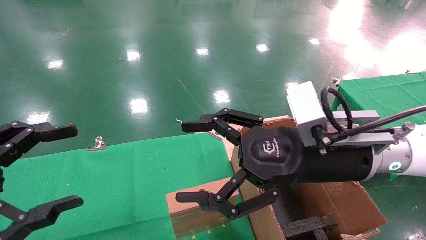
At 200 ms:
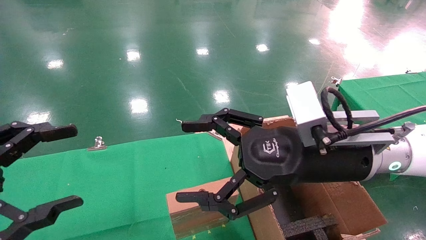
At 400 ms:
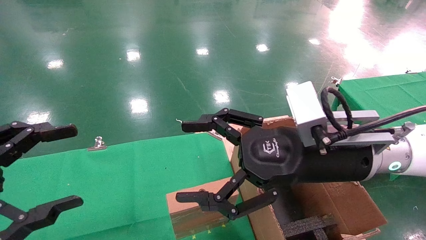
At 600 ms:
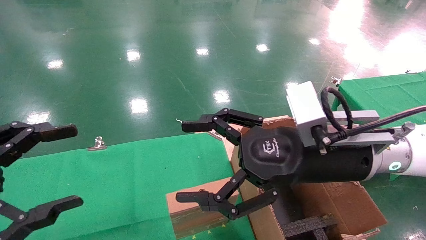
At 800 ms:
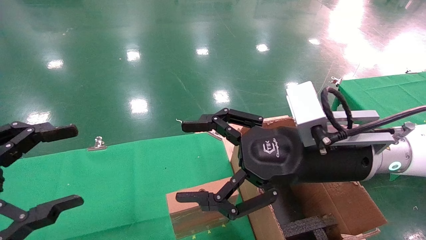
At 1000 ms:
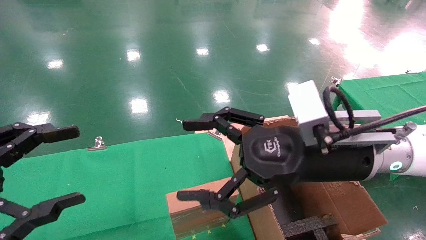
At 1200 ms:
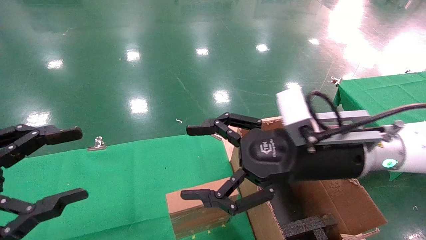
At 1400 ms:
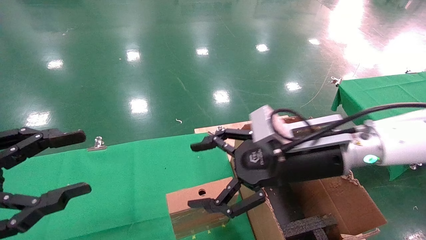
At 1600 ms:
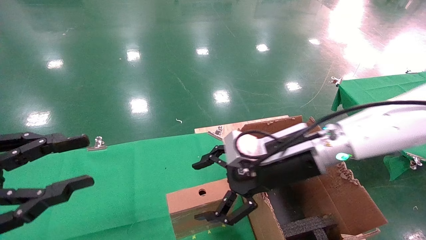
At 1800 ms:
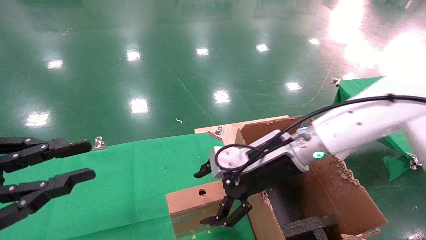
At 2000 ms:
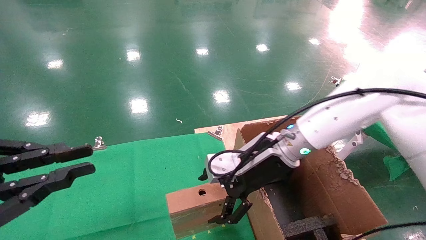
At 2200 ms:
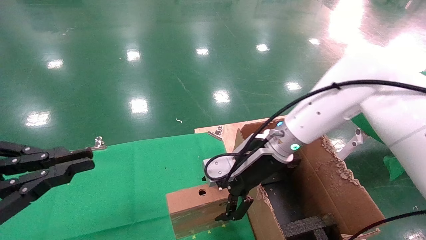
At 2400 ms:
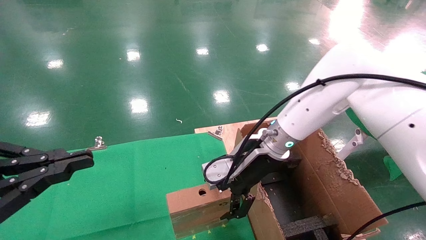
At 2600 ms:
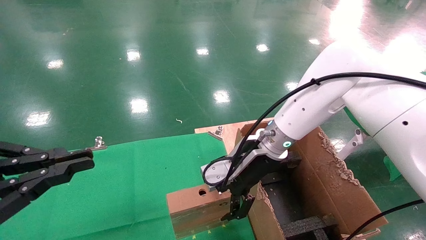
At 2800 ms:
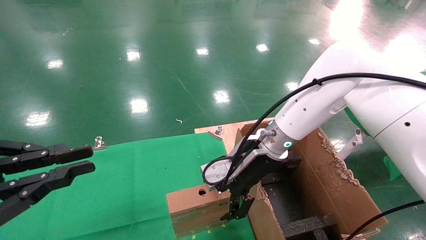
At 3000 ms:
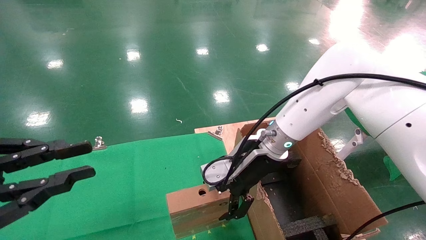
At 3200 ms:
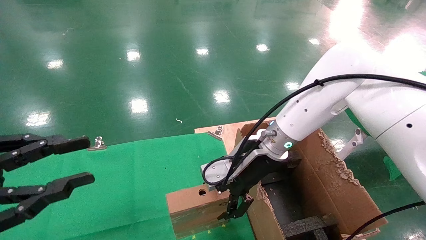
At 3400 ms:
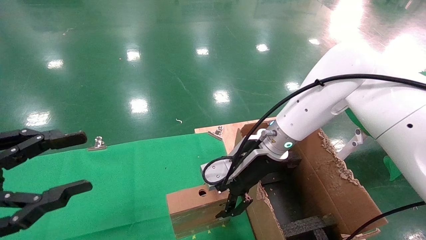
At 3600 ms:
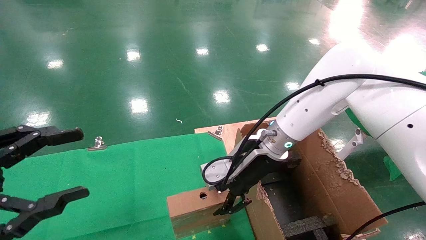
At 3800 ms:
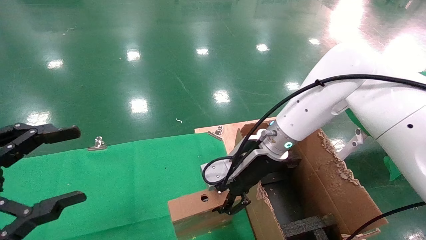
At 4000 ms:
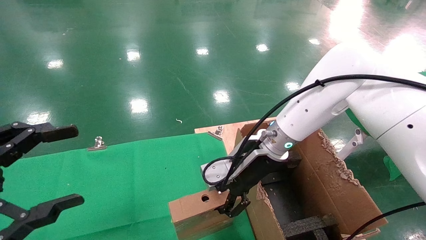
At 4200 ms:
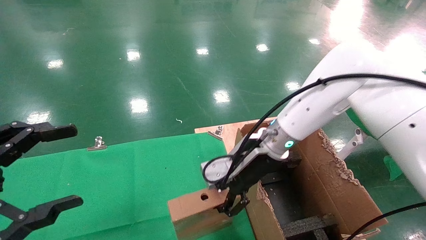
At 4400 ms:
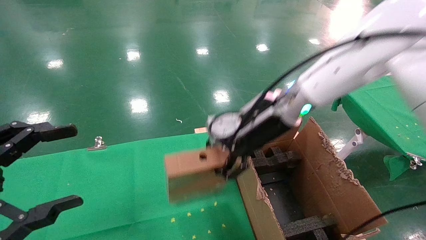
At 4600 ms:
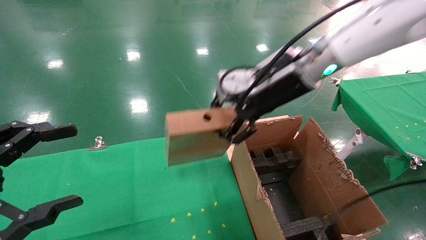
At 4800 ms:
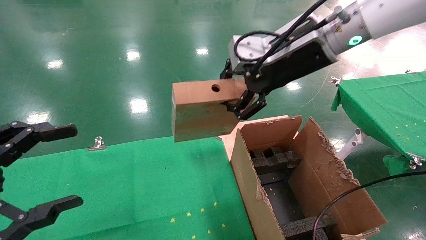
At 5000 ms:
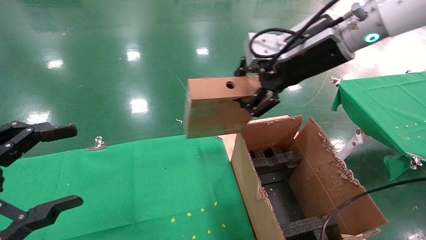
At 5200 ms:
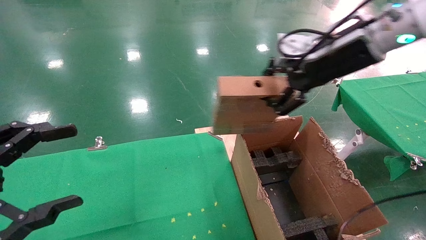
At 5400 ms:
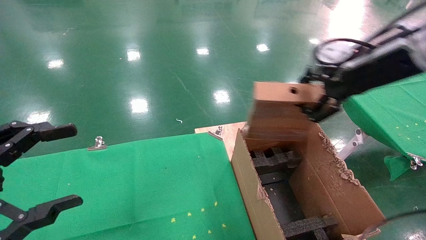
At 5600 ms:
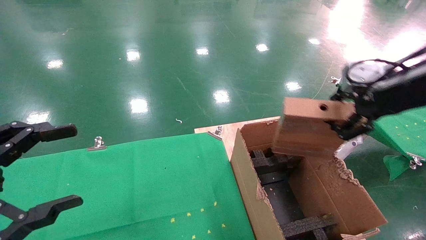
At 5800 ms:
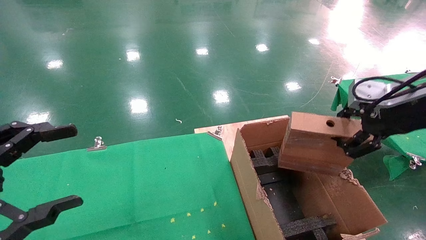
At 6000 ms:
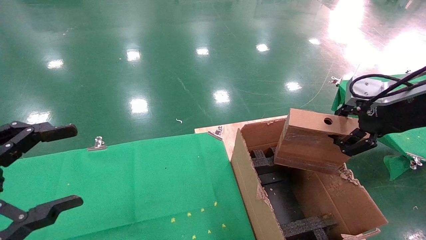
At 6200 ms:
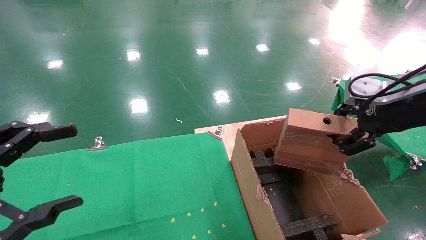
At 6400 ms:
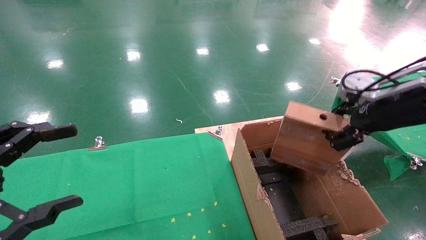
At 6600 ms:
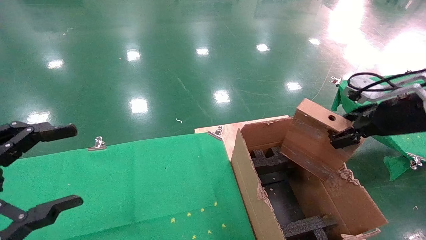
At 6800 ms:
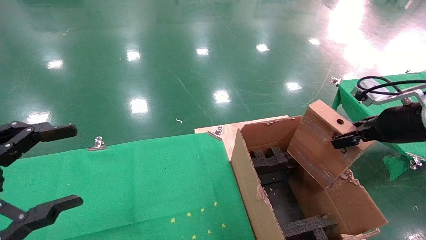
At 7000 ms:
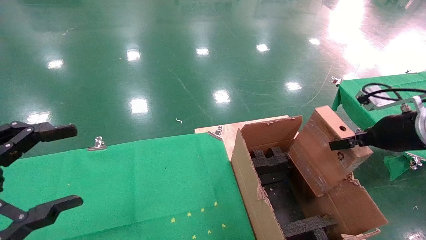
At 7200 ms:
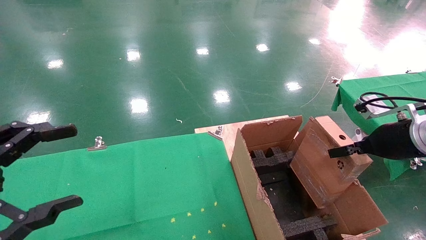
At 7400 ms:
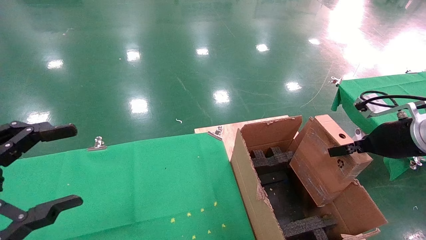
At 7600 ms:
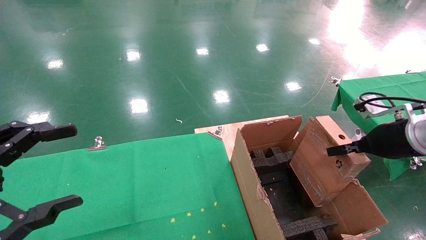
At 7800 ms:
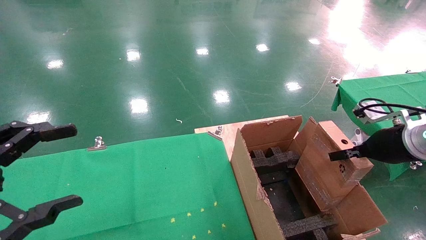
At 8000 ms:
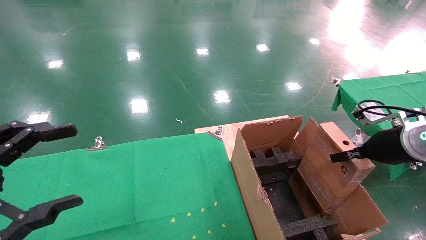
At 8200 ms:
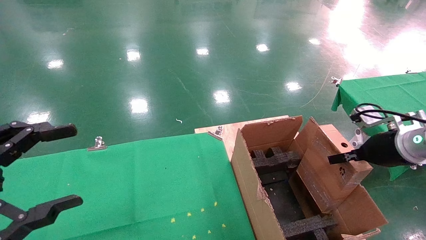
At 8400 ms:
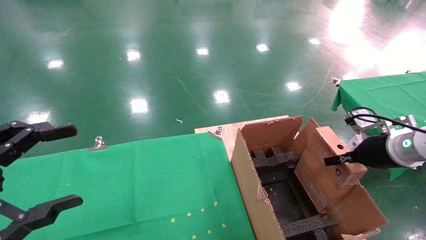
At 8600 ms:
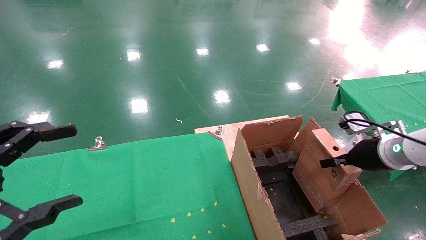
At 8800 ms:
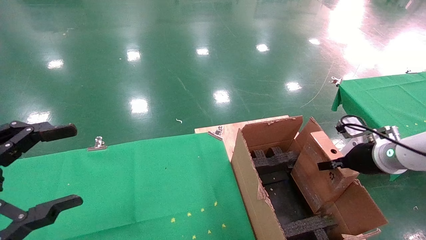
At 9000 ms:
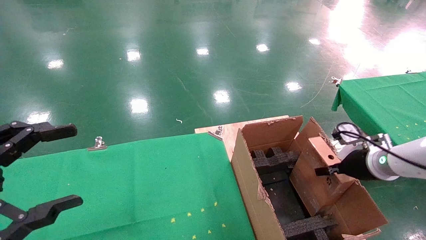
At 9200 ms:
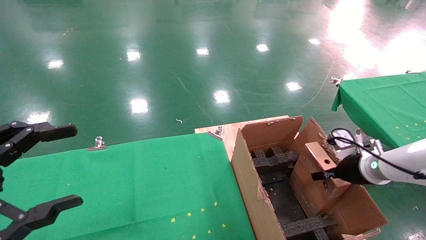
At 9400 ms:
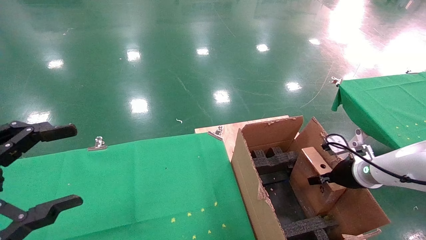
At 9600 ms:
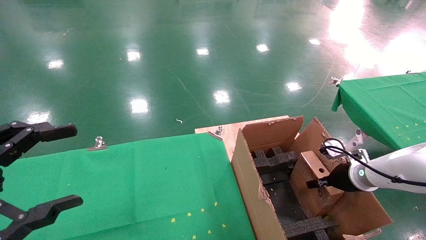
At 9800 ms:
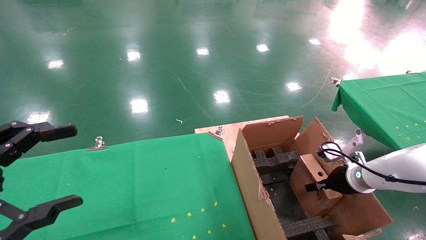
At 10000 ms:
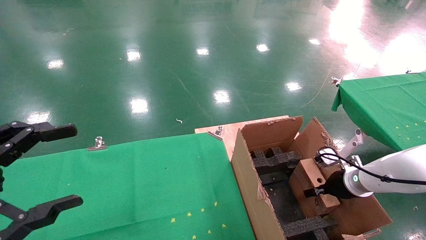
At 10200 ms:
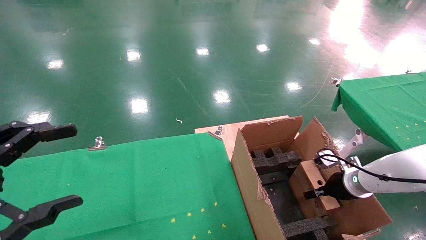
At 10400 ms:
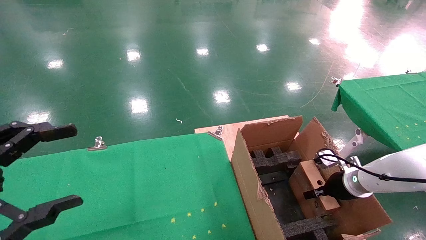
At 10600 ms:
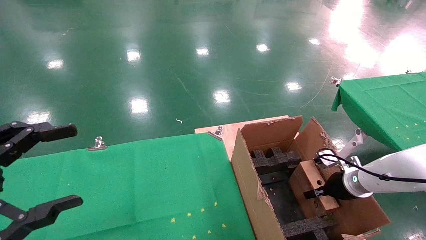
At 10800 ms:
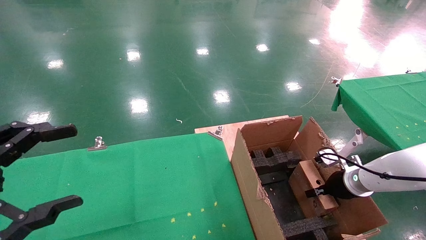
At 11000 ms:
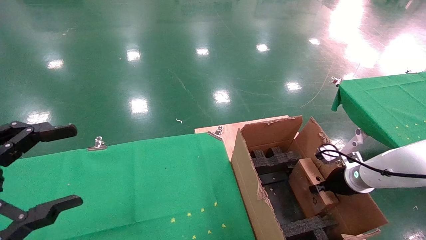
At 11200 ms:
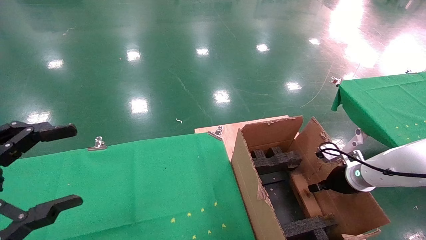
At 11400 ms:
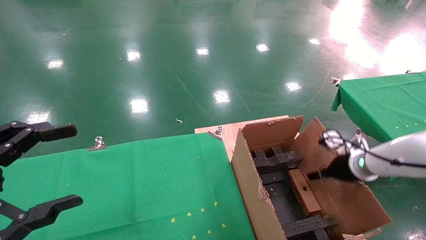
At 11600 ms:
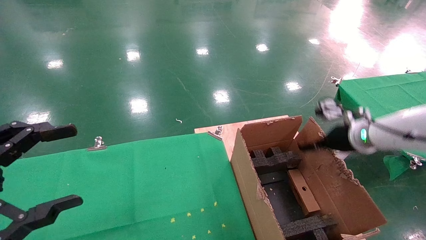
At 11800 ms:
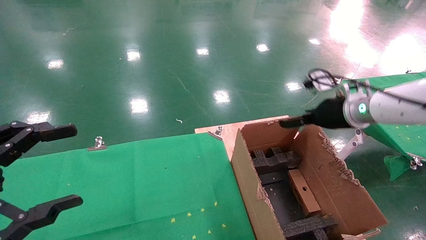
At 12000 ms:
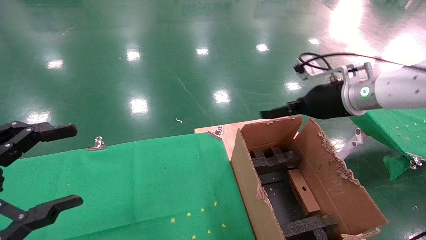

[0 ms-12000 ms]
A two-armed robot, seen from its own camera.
Task of the whole recording: using a robotic arm to pick up a cardboard box and palace it the carton.
Step, 1600 ms to 3600 ms: Pick up the mouse and the power cord paper box.
Step, 3800 ms to 11000 ms: Place the mouse and the power cord paper box into the container.
0 ms to 1600 ms: The left gripper closes. Meanwhile the right gripper travels forward by about 5 cm.
1600 ms to 3000 ms: The left gripper closes, while the right gripper shifts about 5 cm forward.
3000 ms to 4400 ms: The right gripper heads upward, covering some 10 cm, and closes. Meanwhile the left gripper opens up.
4400 ms to 6000 ms: The right gripper shifts roughly 25 cm to the right and backward.
6000 ms to 7600 ms: The right gripper heads downward, covering about 10 cm.
7600 ms to 9000 ms: The right gripper travels downward and forward by roughly 10 cm.
9000 ms to 10400 ms: The right gripper goes approximately 10 cm downward.
10400 ms to 12000 ms: The right gripper is displaced upward by about 25 cm, and opens its fingers.

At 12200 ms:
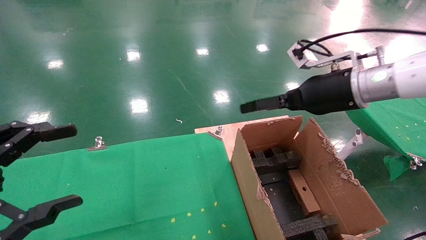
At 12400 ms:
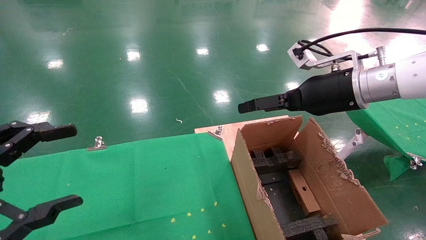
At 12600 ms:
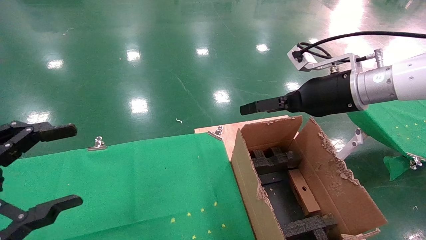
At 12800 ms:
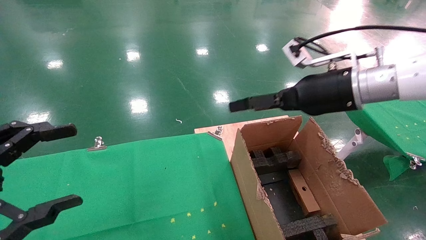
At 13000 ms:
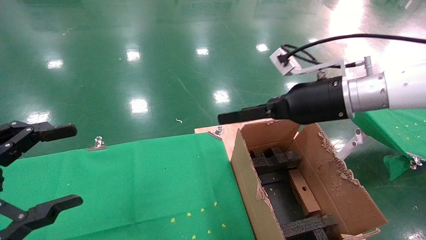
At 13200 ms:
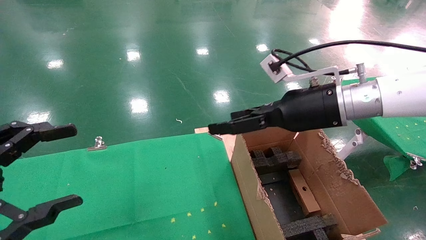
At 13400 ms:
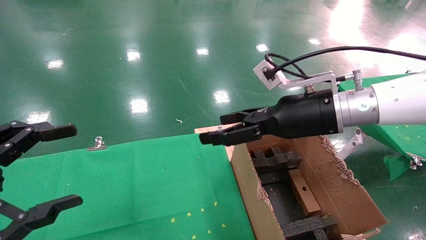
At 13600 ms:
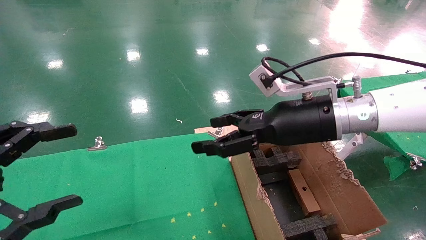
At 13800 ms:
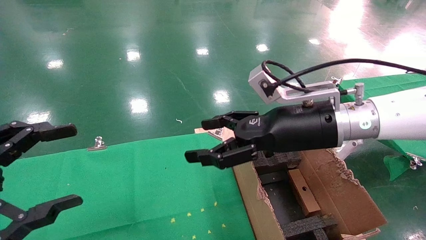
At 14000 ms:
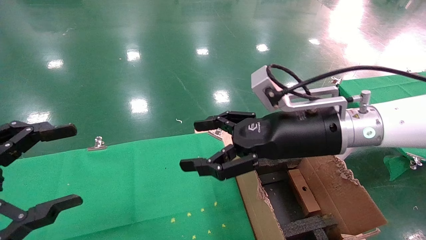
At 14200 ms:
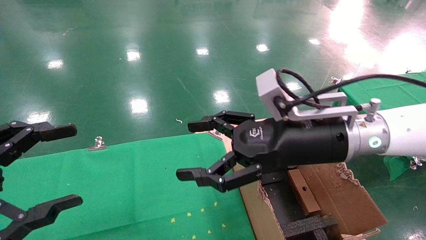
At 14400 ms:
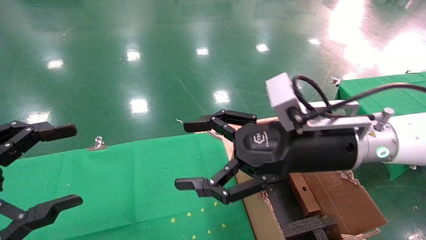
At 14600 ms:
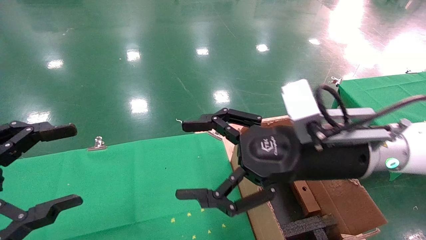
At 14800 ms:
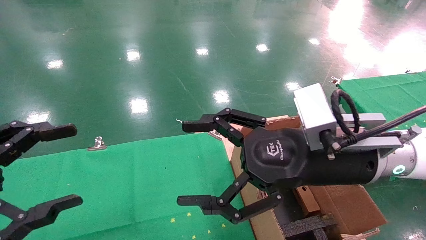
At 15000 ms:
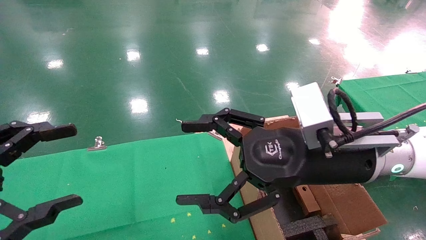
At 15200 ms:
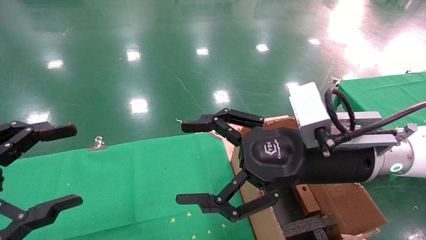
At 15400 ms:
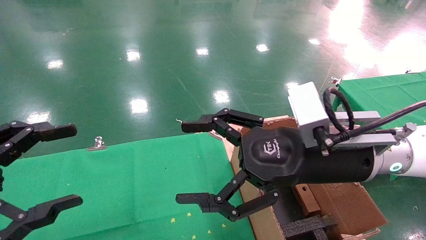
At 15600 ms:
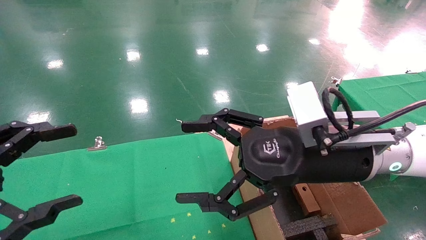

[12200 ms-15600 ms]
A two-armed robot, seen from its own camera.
Task of the whole recording: using a robotic arm to pick up a cardboard box and palace it the carton.
12200 ms to 13800 ms: The right gripper shifts roughly 10 cm to the left and backward.
13800 ms to 15600 ms: The right gripper moves backward, some 5 cm.
